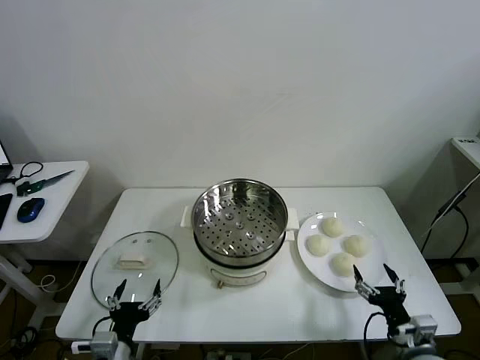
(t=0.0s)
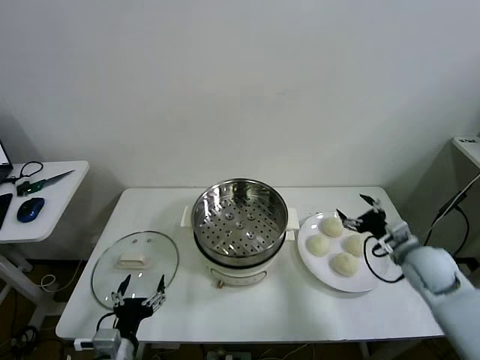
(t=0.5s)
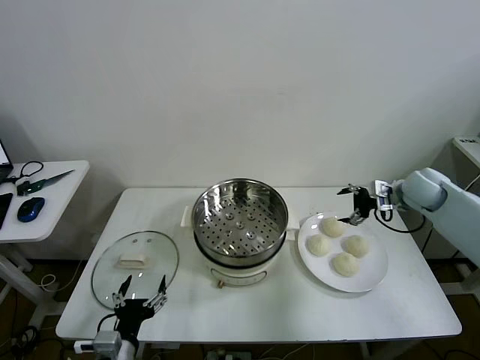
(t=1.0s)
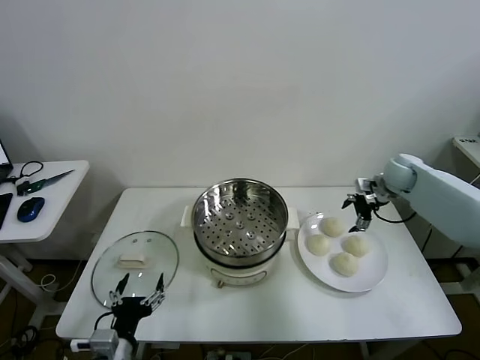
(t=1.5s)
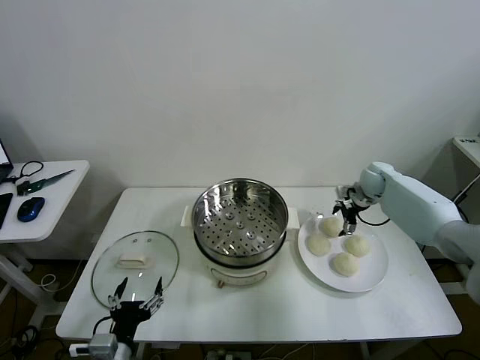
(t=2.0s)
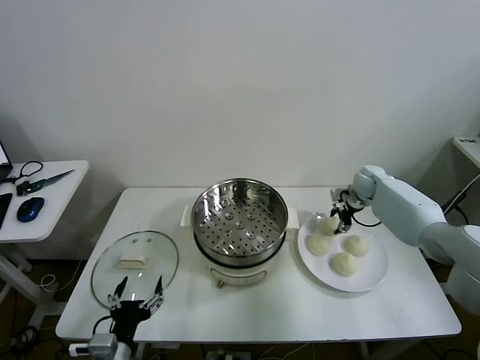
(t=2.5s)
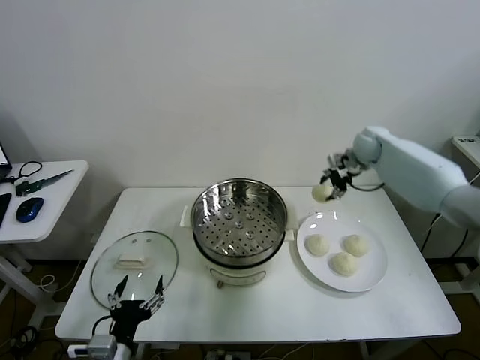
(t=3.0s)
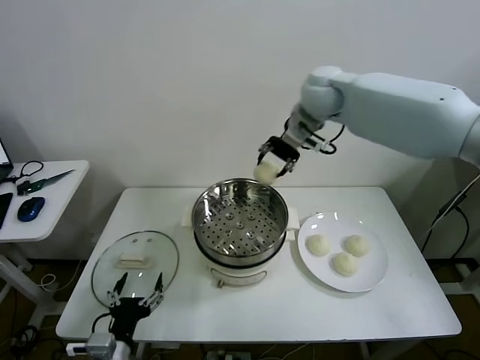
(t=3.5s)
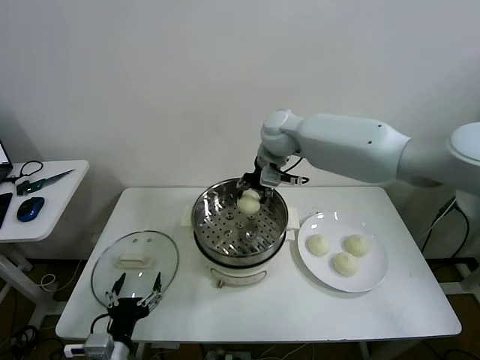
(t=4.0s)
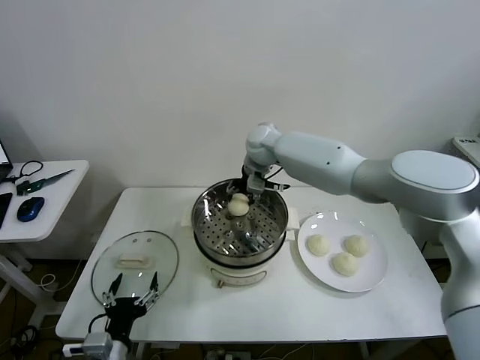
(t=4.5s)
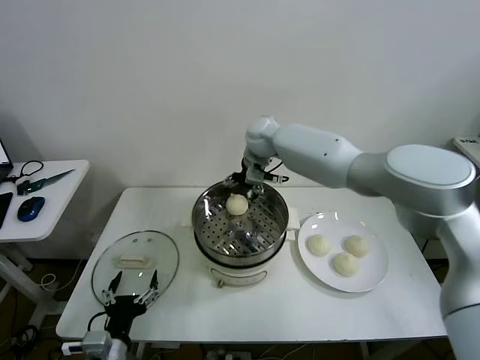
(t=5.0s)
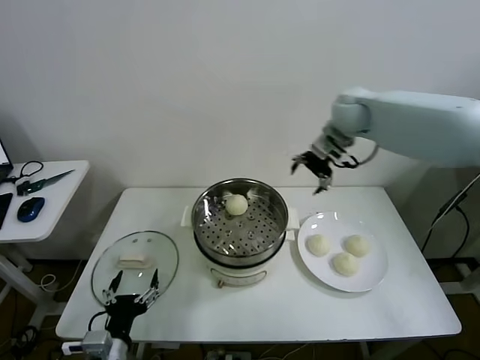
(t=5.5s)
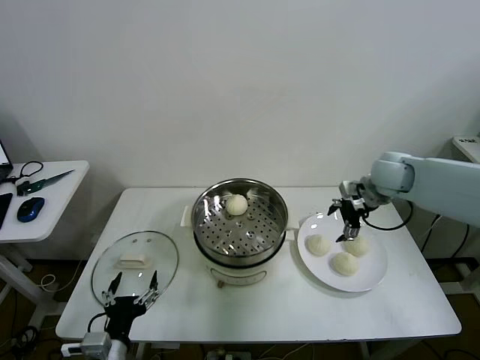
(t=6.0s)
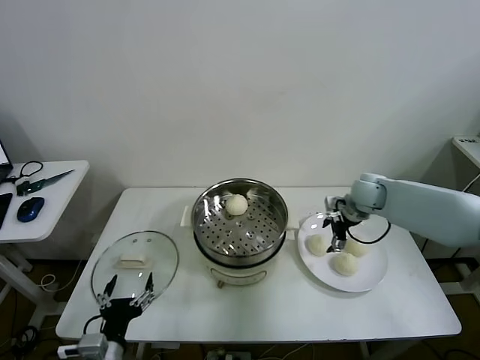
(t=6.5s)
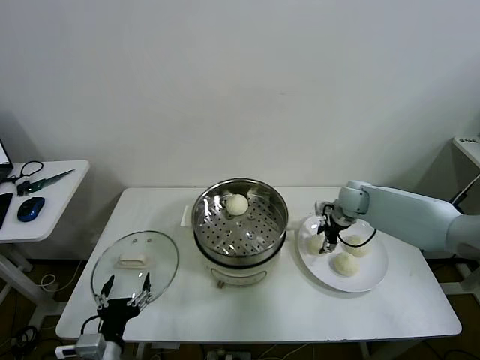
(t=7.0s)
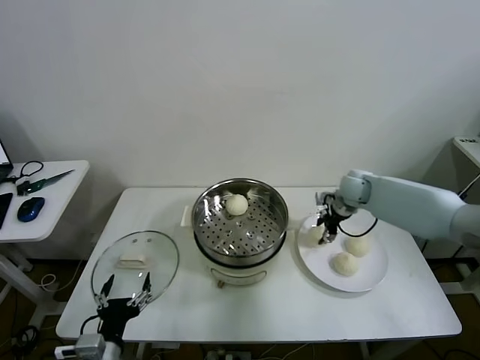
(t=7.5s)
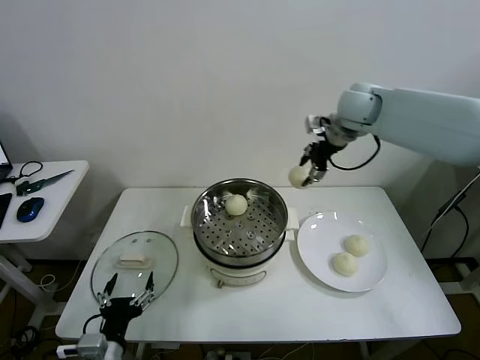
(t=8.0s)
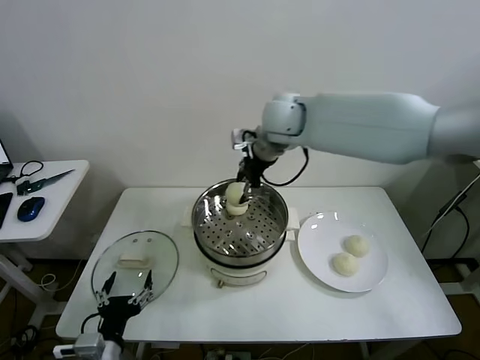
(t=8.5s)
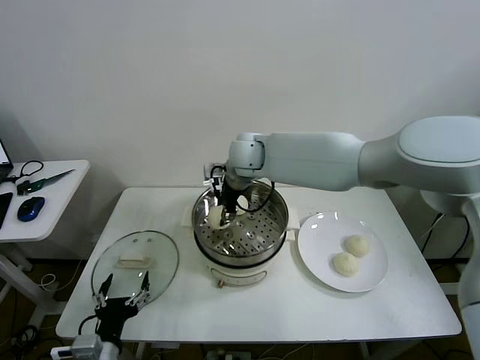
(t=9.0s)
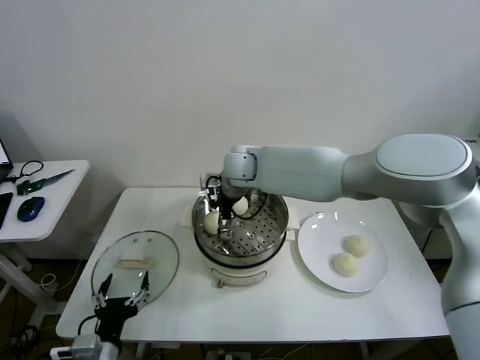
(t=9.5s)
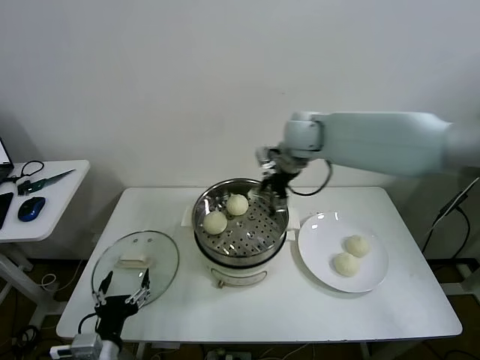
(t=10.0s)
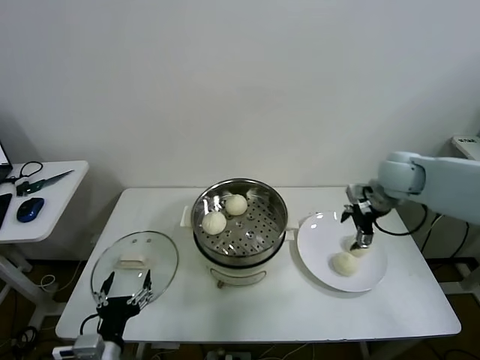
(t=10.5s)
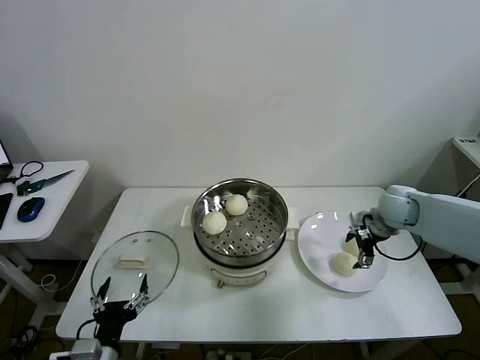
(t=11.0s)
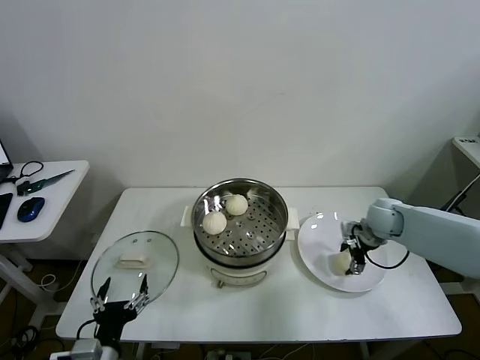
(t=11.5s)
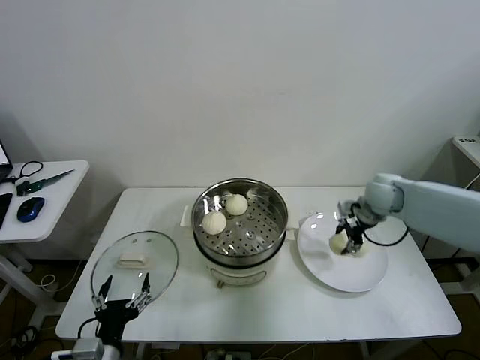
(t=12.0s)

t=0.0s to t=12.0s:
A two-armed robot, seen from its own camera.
Task of the whole recording: take steamed baozi put them in steamer then cover it.
Step, t=0.0s to t=2.0s: Grasp the baozi in the plate with right gripper.
Step, t=2.5s to t=5.0s: Place the baozi on the steamer with right gripper.
Step, t=5.5s to t=7.0s: Grasp the baozi in the plate with right gripper.
Step, t=7.5s to t=9.5s: Place the baozi on the steamer with right gripper.
Step, t=10.0s to t=11.5s: Grasp the baozi in the plate with right gripper.
t=2.0s to t=4.0s: The right gripper travels to the left and upward by roughly 35 cm, and closes up.
t=4.0s to t=6.0s: The right gripper travels to the right by roughly 25 cm, and opens.
t=6.0s to t=8.0s: The right gripper shifts roughly 20 cm upward and to the left, and closes its fingers.
t=8.0s to t=10.0s: The right gripper shifts some 5 cm downward, moves approximately 20 cm to the left and comes back, and opens its fingers.
t=10.0s to t=12.0s: The right gripper is displaced to the right and downward by approximately 20 cm, and closes up.

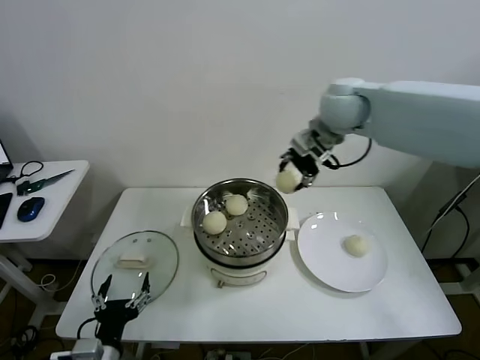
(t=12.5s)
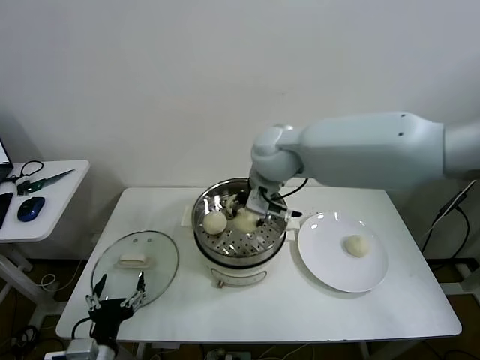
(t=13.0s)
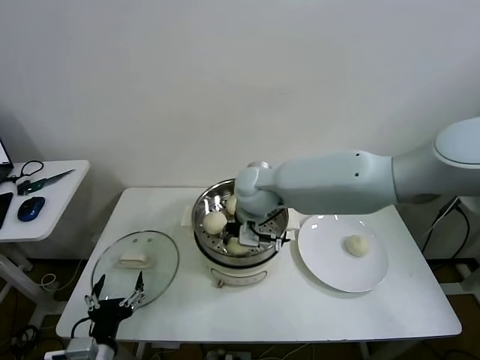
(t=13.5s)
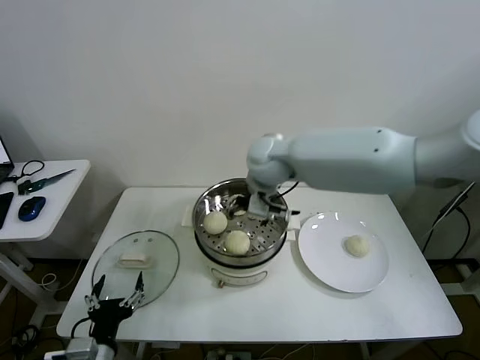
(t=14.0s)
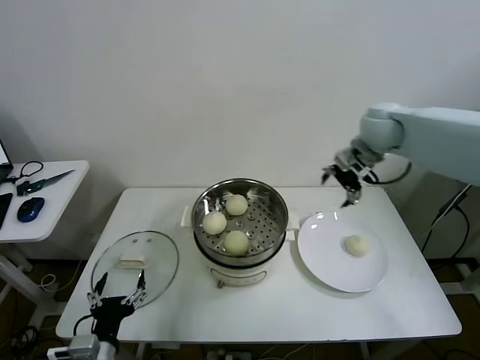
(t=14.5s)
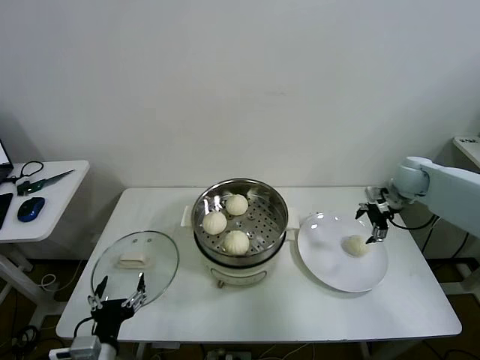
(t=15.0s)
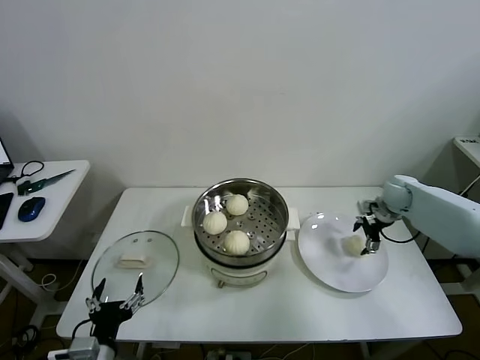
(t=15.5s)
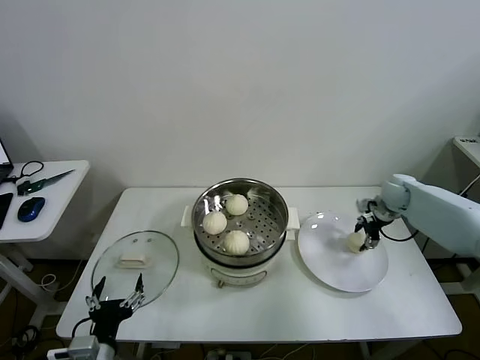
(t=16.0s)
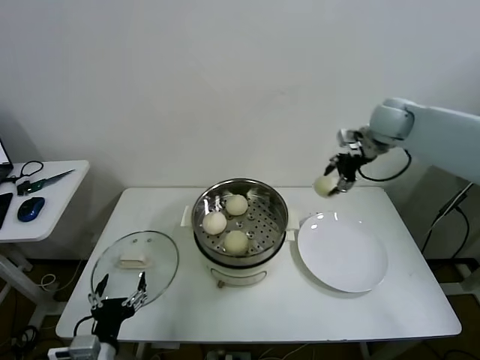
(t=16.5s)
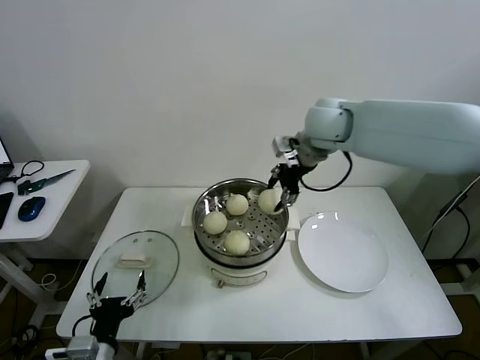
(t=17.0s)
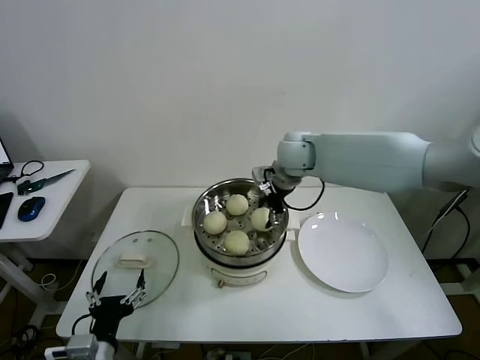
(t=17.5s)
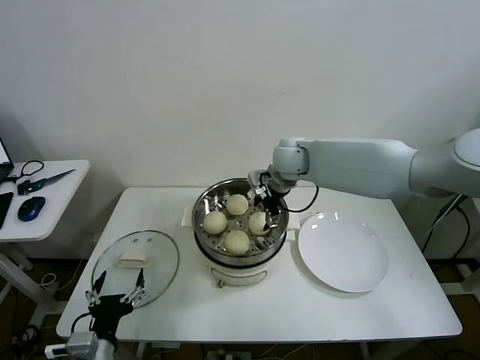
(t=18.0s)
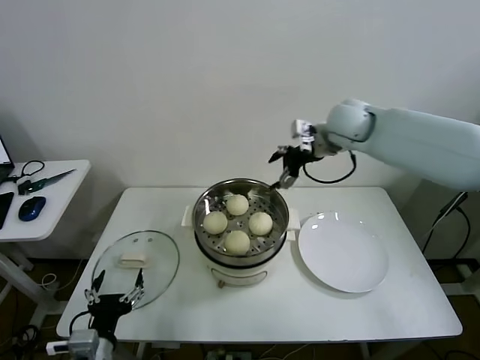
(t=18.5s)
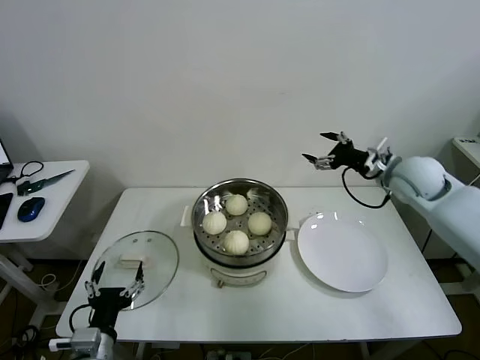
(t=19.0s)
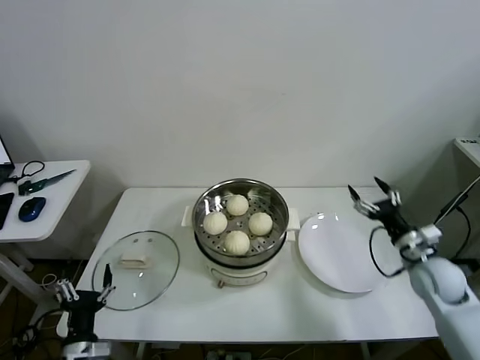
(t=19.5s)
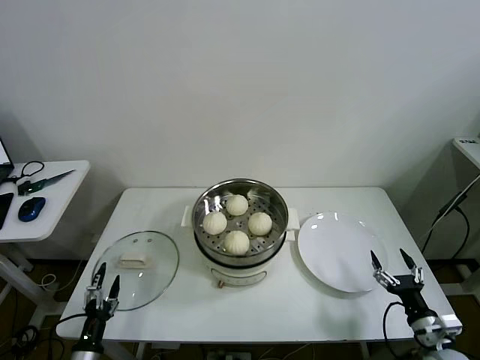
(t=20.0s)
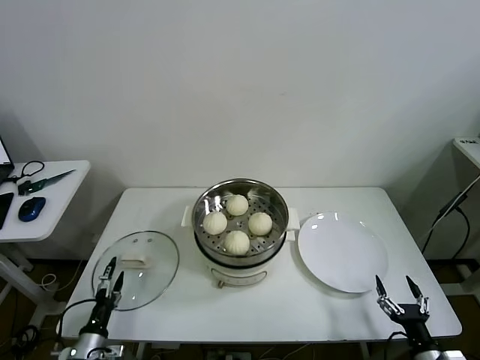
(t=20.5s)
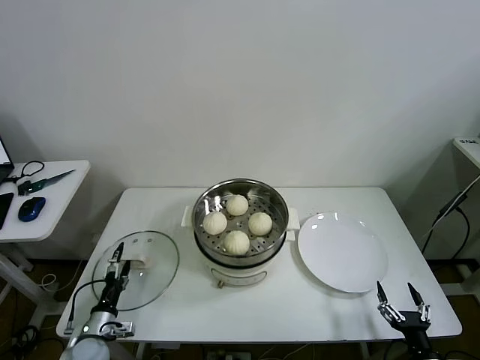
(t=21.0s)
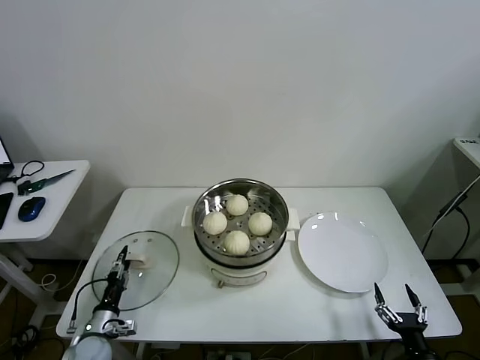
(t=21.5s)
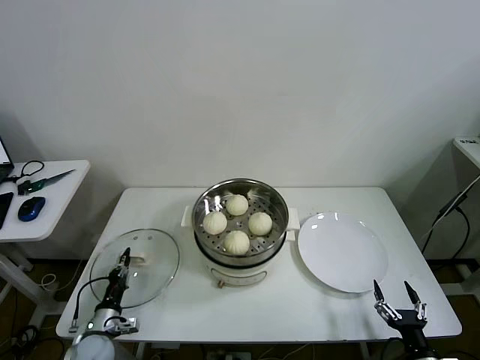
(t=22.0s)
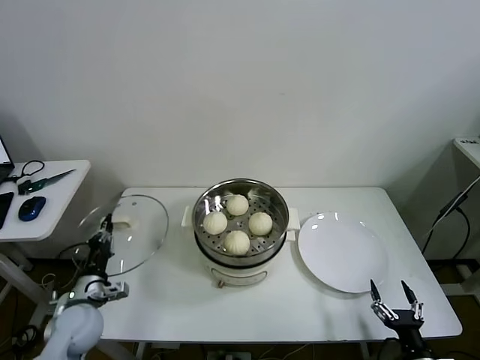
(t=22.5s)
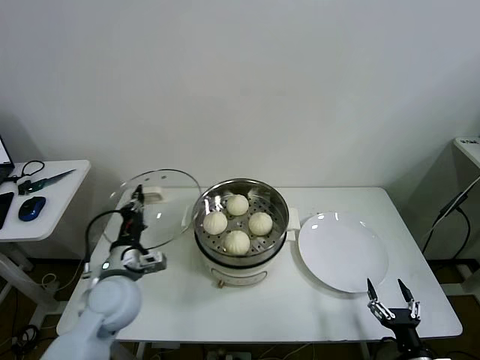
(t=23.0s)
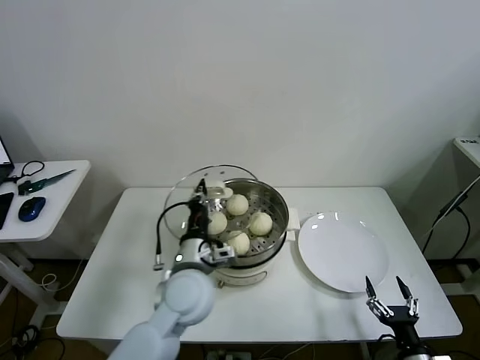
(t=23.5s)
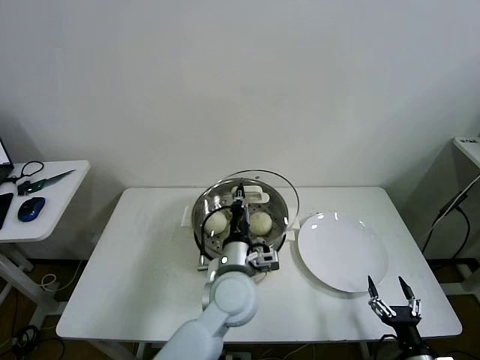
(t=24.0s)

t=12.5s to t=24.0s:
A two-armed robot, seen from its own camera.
Task of the whole recording: take steamed baozi put them in steamer then cover it.
Step, t=14.0s to t=15.5s: Grasp the baozi in the plate with right gripper.
Step, t=16.0s to t=18.0s: Place the baozi on the steamer with right gripper.
Step, t=18.5s to t=21.5s: Grasp the pot lid with left gripper.
t=12.5s to t=14.5s: The right gripper moves to the right and downward, approximately 15 cm, and opens its fingers.
t=14.5s to t=16.5s: The right gripper reaches roughly 20 cm downward, then returns, and closes.
t=16.5s to t=18.5s: The right gripper is displaced to the left by some 10 cm, and opens its fingers.
t=18.5s to t=20.0s: The right gripper goes some 50 cm downward, backward and to the right. Meanwhile the left gripper heads downward and to the left, covering roughly 15 cm.
t=20.0s to t=22.0s: The left gripper heads forward, covering approximately 10 cm, and closes up. The right gripper moves backward, approximately 5 cm.
t=22.0s to t=24.0s: The left gripper heads to the right and upward, covering some 40 cm.

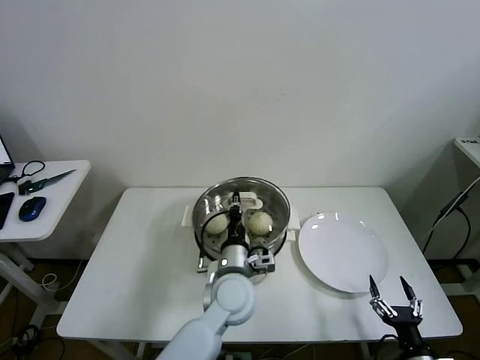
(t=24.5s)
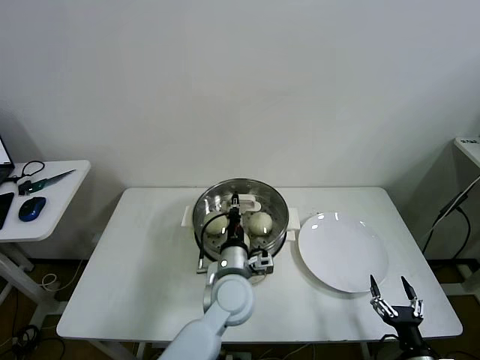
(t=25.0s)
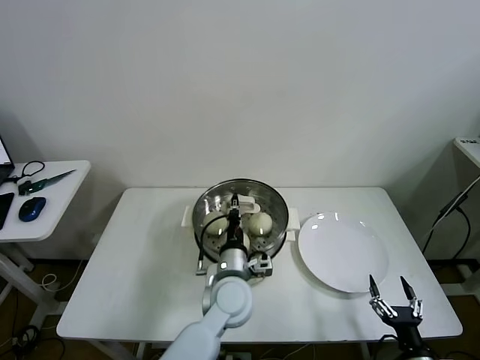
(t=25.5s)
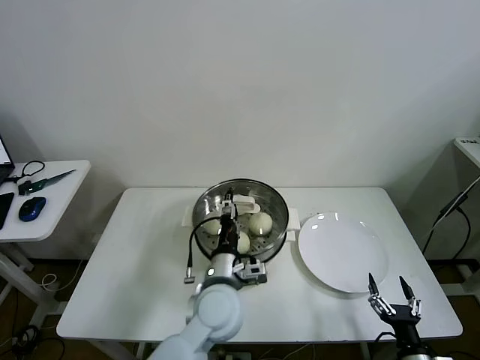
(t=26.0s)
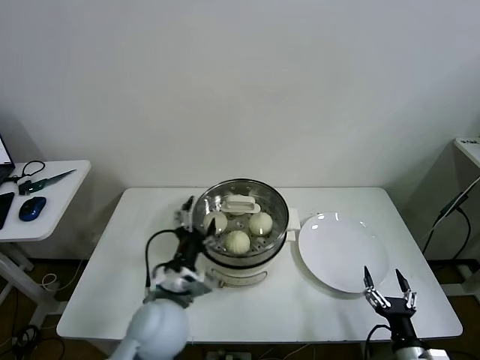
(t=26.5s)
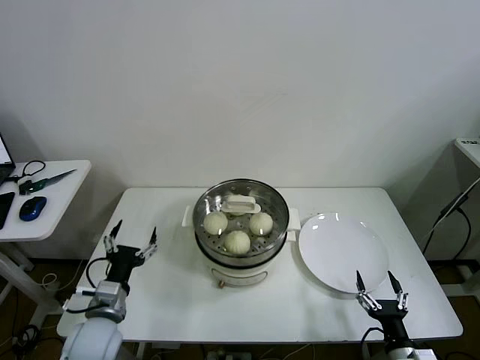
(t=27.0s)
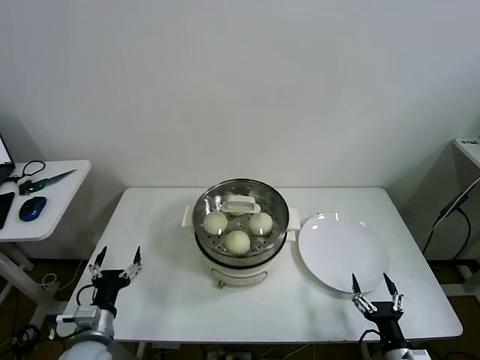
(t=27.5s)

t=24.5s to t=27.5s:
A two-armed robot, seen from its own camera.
Task of the whole recording: take steamed baozi put them in steamer then cover it.
t=24.5s to t=26.0s: The left gripper opens up.
t=26.0s to t=27.5s: The left gripper is displaced to the left by roughly 30 cm, and opens its fingers.
